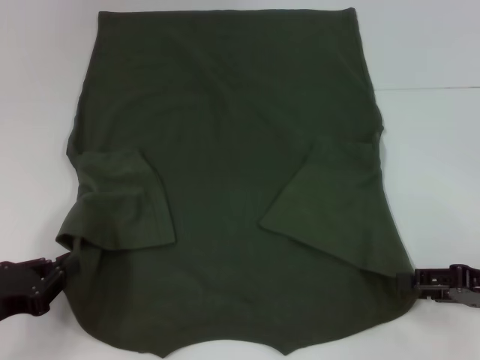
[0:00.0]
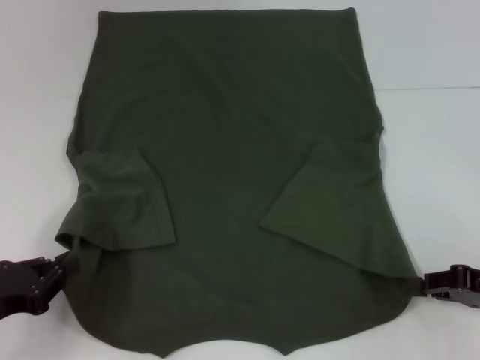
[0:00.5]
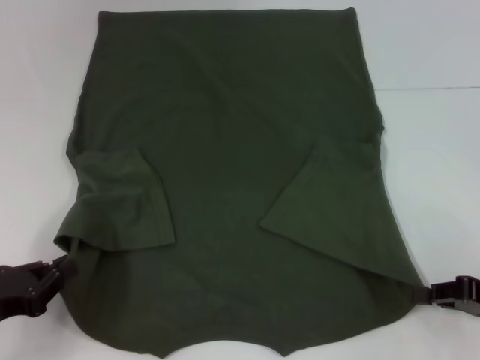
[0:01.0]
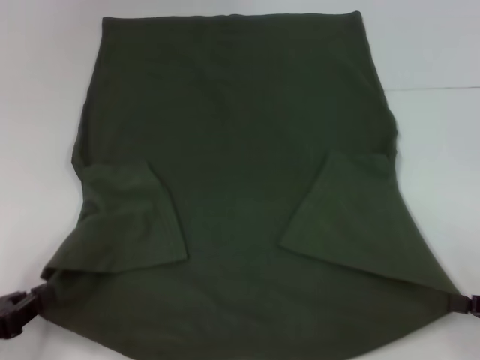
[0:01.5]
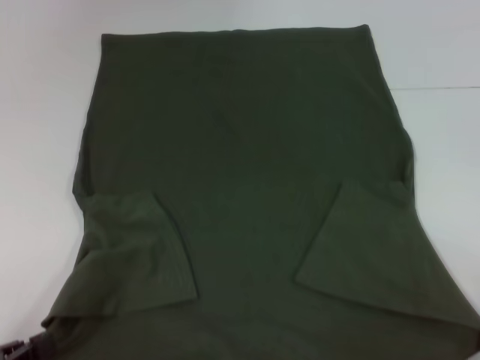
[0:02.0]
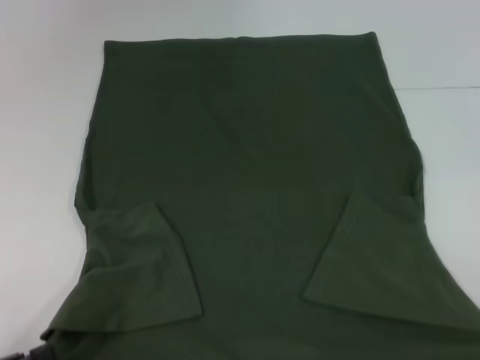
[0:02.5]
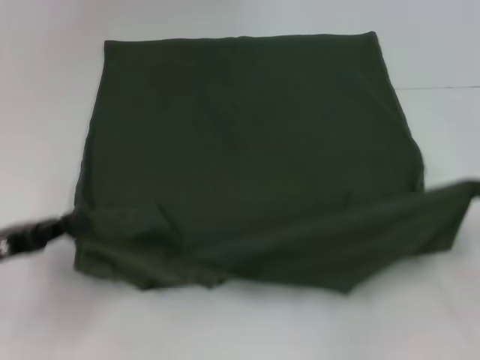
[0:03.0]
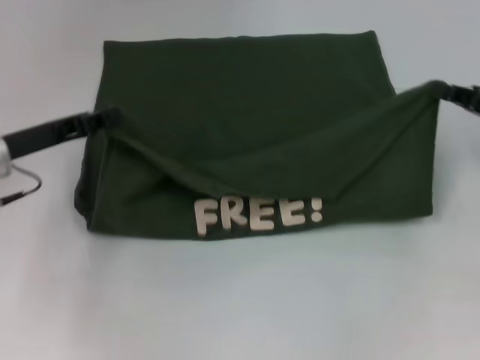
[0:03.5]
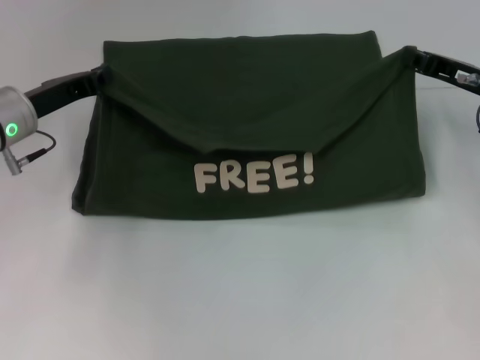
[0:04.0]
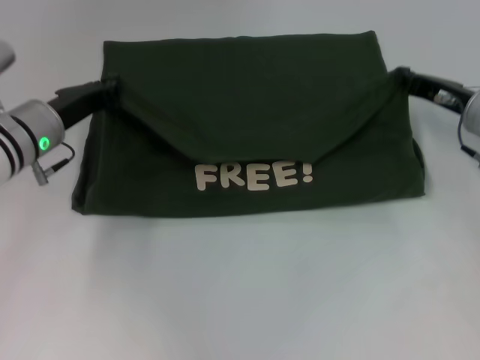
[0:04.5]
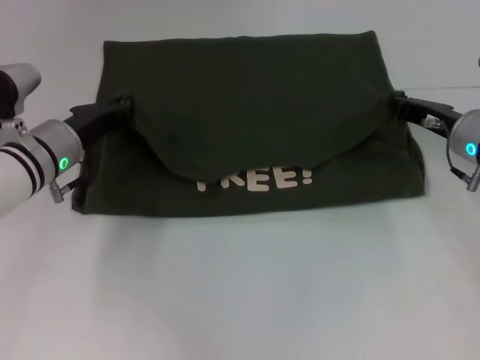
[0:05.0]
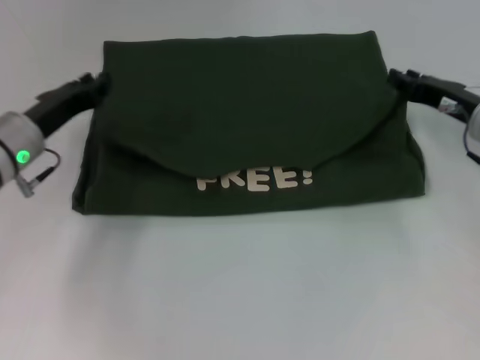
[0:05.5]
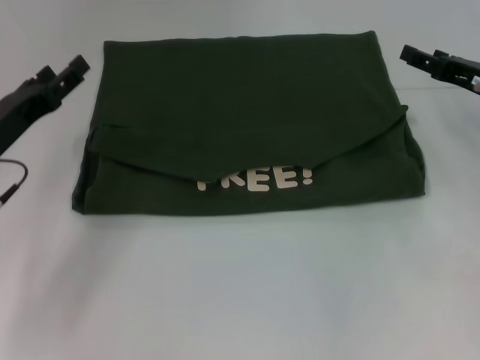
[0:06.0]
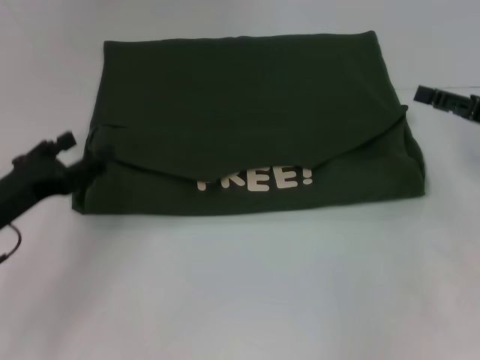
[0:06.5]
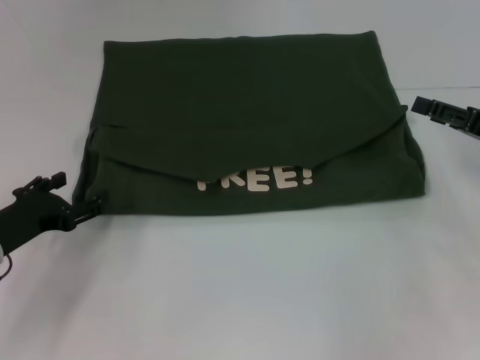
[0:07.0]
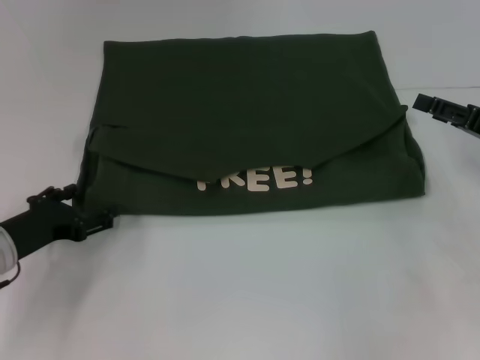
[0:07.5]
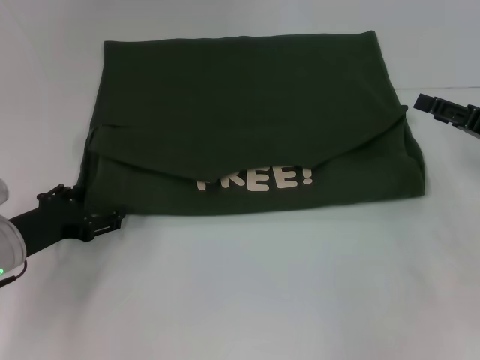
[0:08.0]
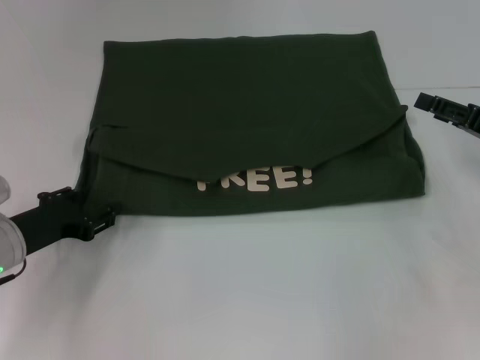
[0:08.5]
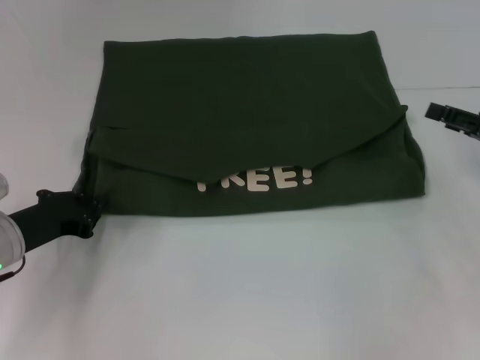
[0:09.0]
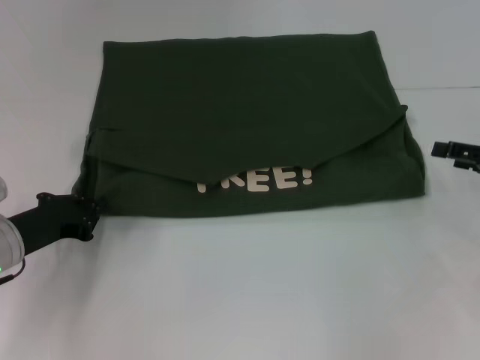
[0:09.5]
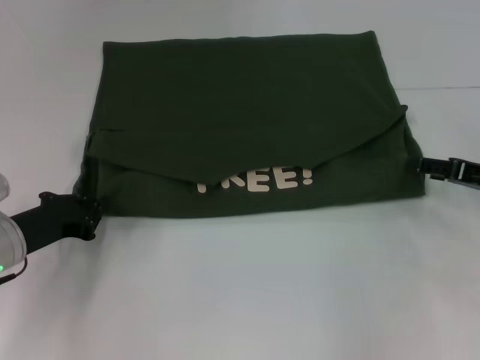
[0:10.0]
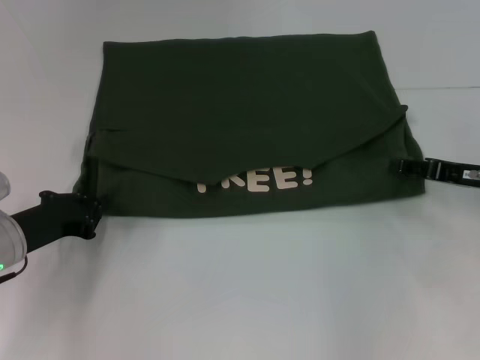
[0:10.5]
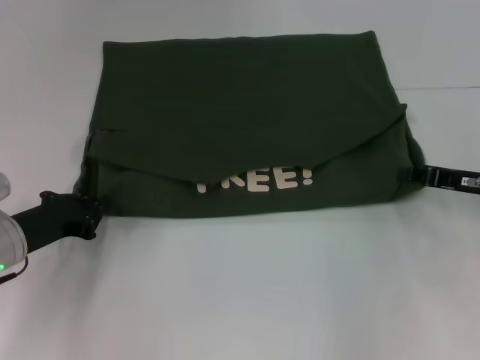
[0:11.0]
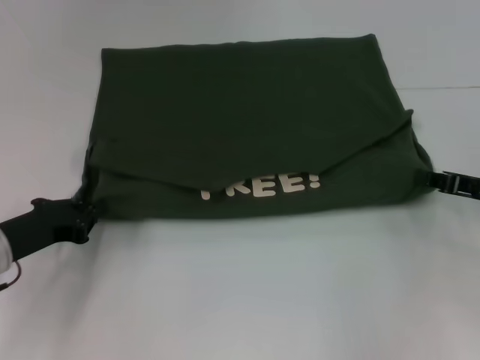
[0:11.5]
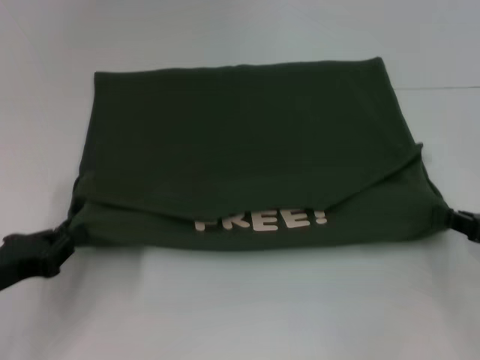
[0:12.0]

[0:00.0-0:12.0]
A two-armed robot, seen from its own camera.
Step, 0:01.0 to 0:05.5: Fold the clothes with your left hand.
Step, 0:01.0 to 0:05.5: Fold the clothes with your right hand.
0:00.0 to 0:02.0: The left gripper heads backward, covering roughly 5 cm. Meanwhile the right gripper shifts approximately 10 cm backward and to the right, and closes up.
0:02.0 to 0:04.0: Both grippers move forward, approximately 25 cm.
0:04.0 to 0:06.0: The right gripper opens. Meanwhile the left gripper travels backward by roughly 5 cm, and opens up.
0:06.0 to 0:08.0: The left gripper goes roughly 5 cm downward, while the right gripper travels backward by approximately 5 cm.
0:08.0 to 0:10.0: The left gripper closes its fingers.
0:10.0 to 0:12.0: Both grippers travel together backward, some 5 cm. The right gripper closes.

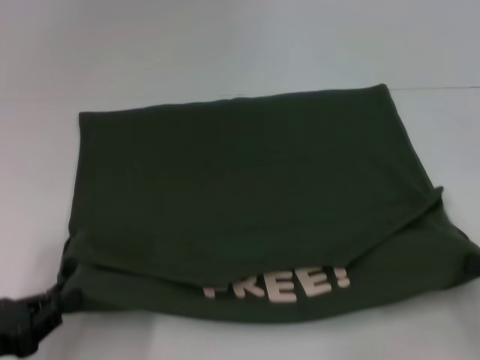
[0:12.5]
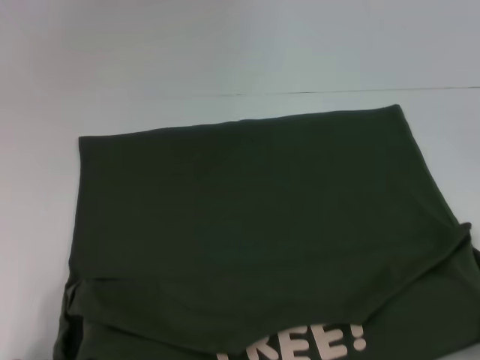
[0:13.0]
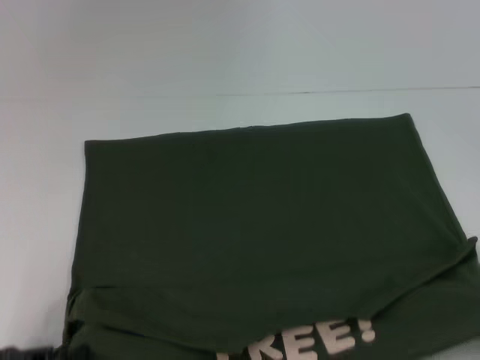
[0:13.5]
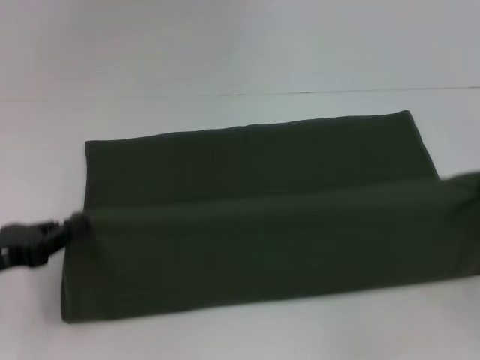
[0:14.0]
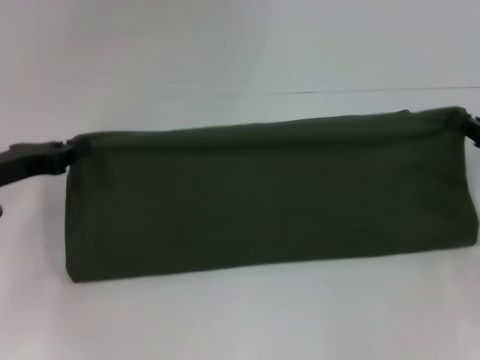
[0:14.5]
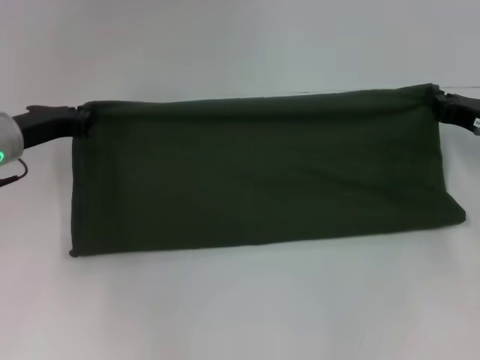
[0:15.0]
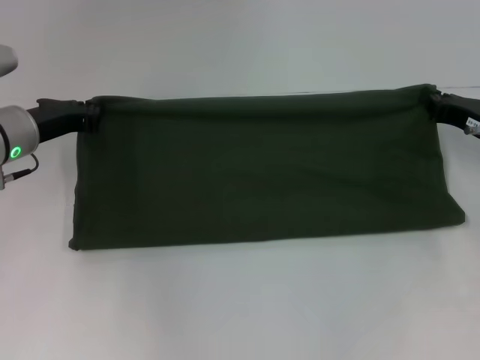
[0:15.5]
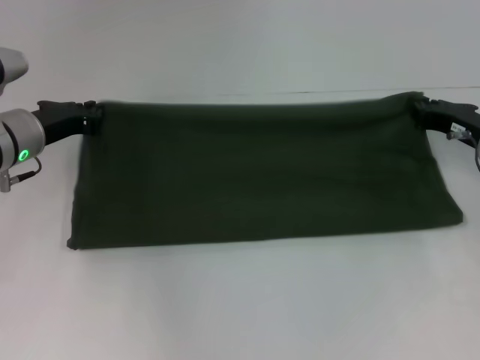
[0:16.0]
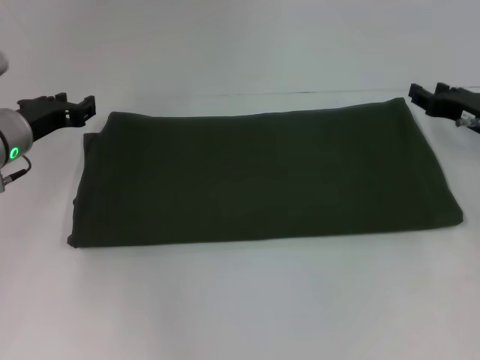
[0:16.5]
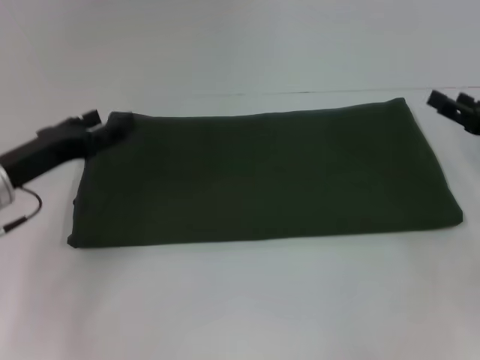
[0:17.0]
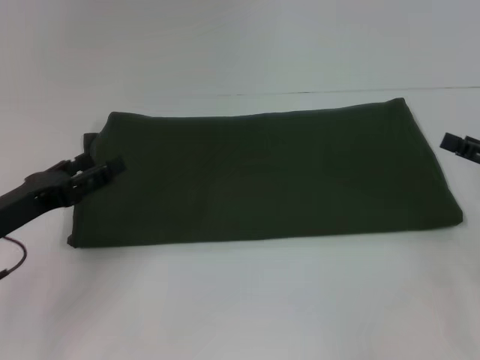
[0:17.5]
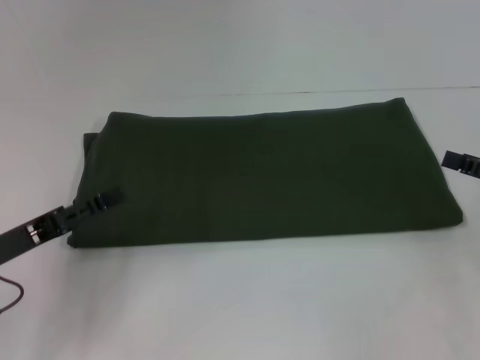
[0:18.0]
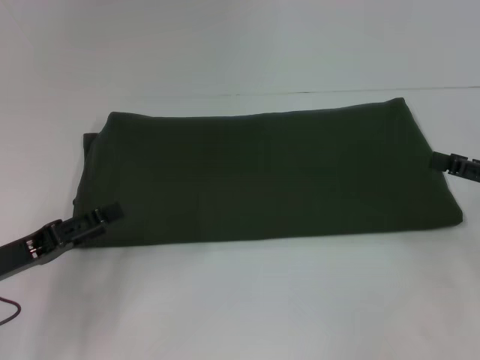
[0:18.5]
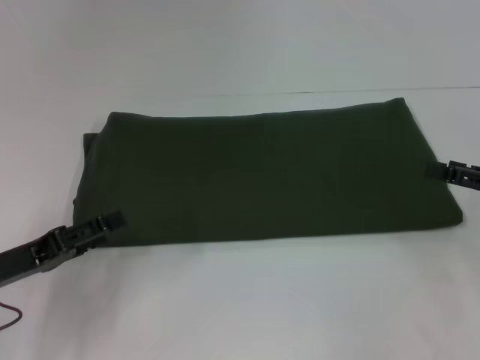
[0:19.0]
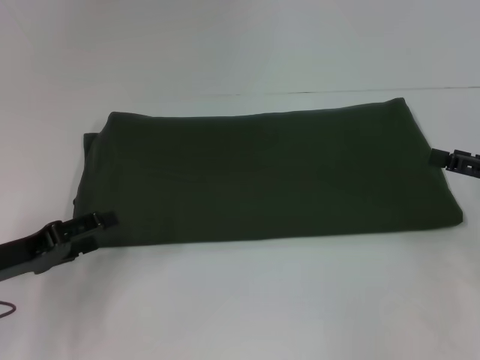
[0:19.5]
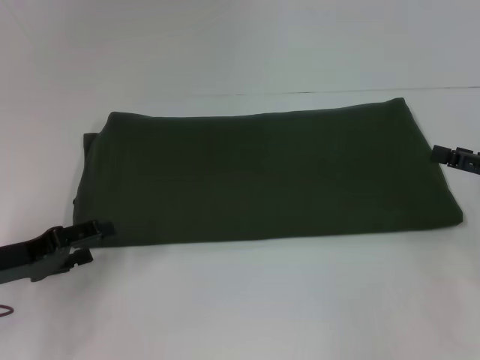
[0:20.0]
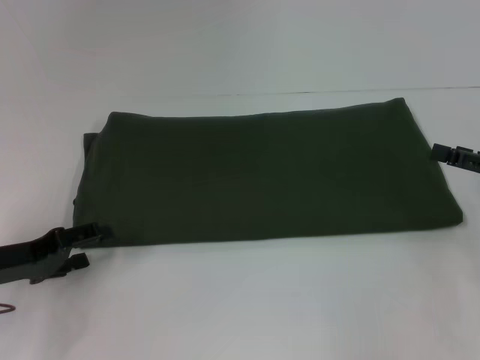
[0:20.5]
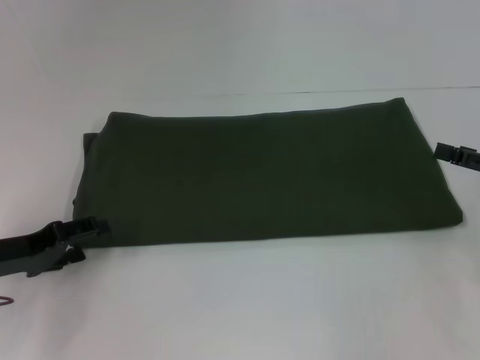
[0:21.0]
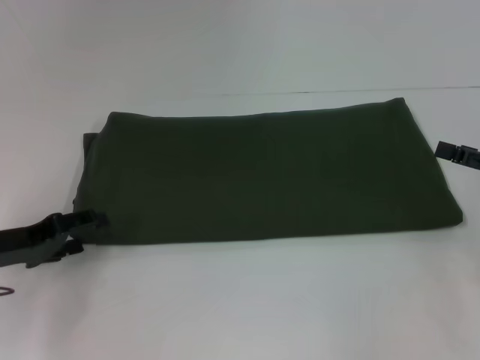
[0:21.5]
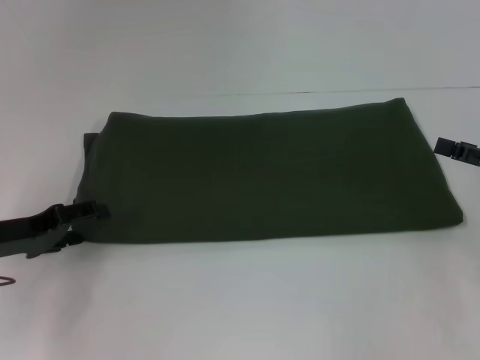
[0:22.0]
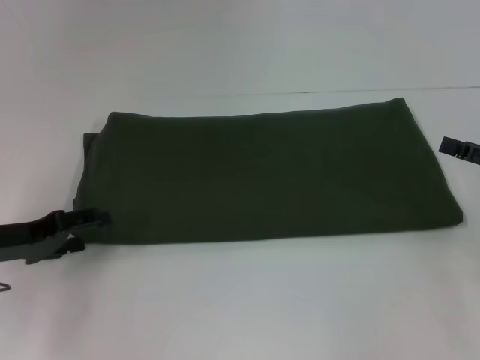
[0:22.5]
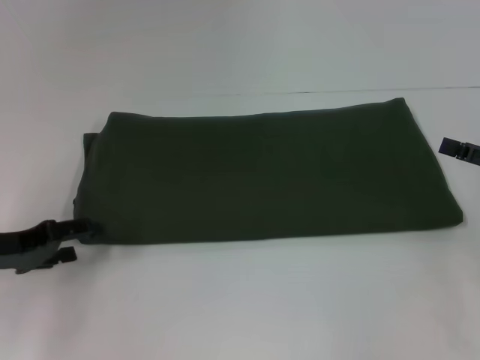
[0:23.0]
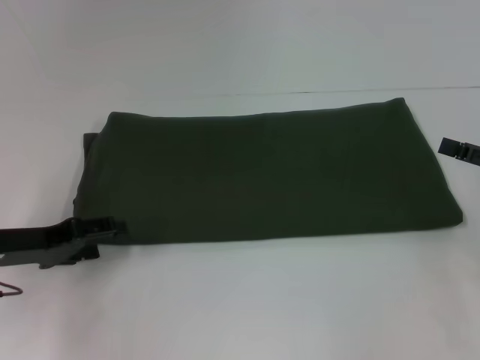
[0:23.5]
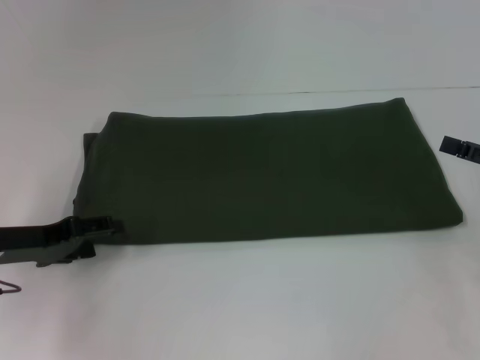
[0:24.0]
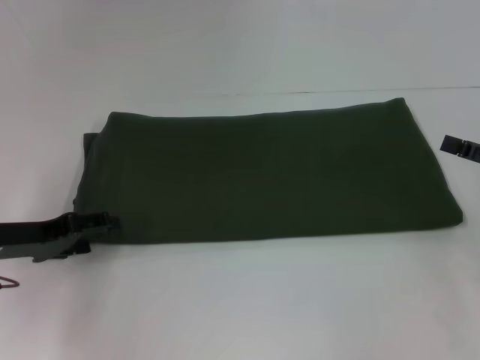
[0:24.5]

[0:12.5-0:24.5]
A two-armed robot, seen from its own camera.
Step, 0:13.5 to 0:16.0: Fold the clothes with your right hand.
0:12.5 to 0:14.5: The grippers both shift forward by approximately 15 cm.
0:14.5 to 0:16.5: The left gripper shifts some 5 cm forward, and opens. The right gripper heads forward and to the left, covering approximately 10 cm, and opens up.
0:16.5 to 0:18.5: The left gripper travels backward by roughly 15 cm, and opens. The right gripper moves backward and to the right, about 10 cm, and opens its fingers.
0:20.5 to 0:22.5: The grippers stay close to where they were, moving slightly.

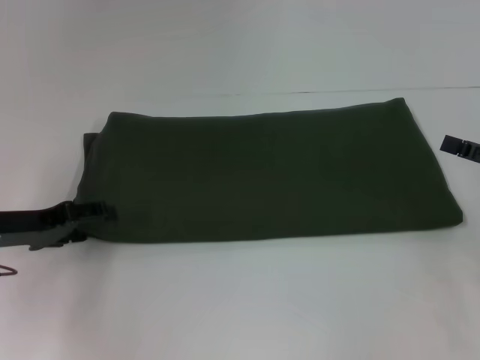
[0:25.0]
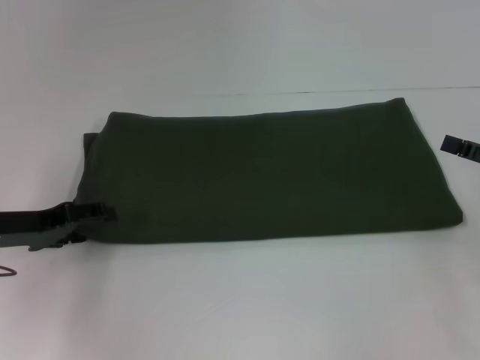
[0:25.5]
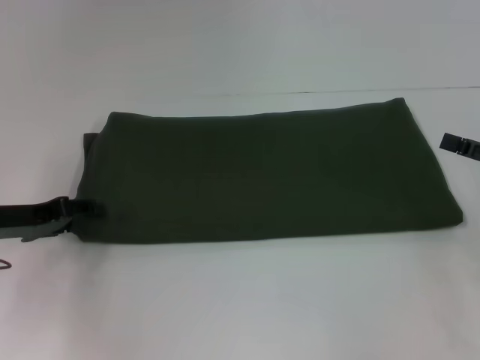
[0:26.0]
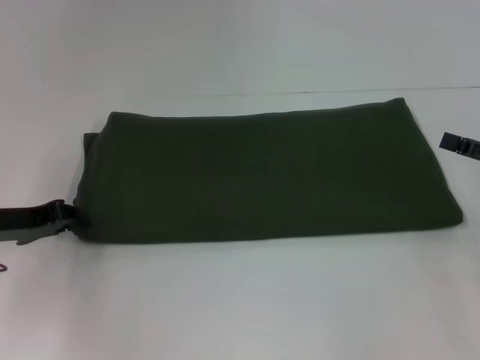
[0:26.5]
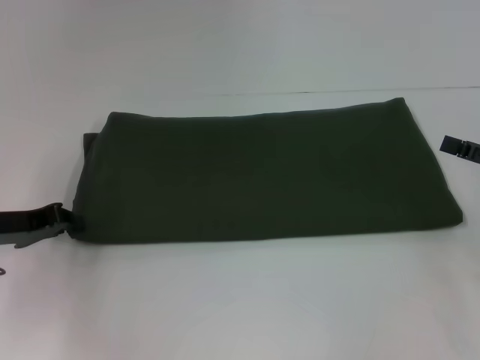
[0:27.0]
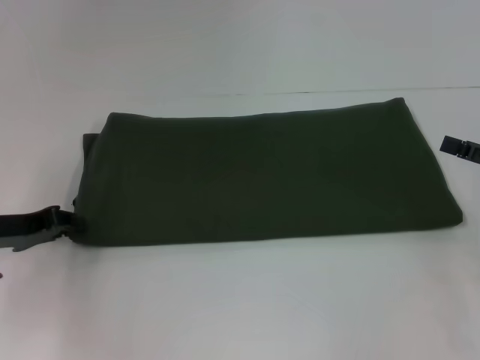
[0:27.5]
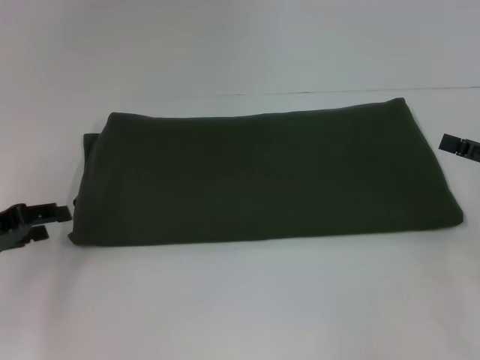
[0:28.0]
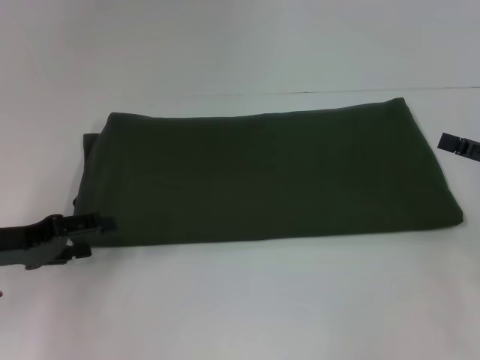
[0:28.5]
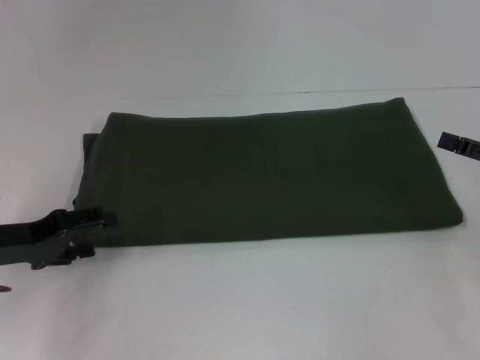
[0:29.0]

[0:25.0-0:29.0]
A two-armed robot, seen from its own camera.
0:25.0 to 0:27.0: The left gripper closes.
0:27.0 to 0:29.0: The left gripper opens.
